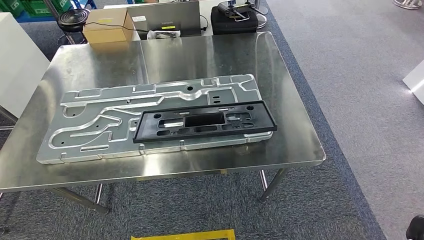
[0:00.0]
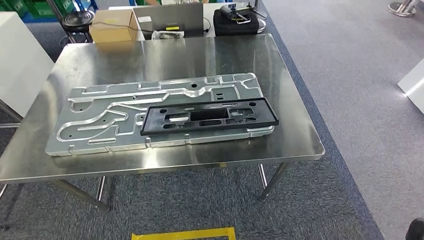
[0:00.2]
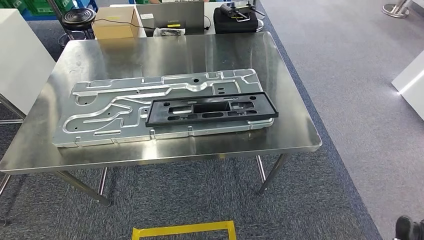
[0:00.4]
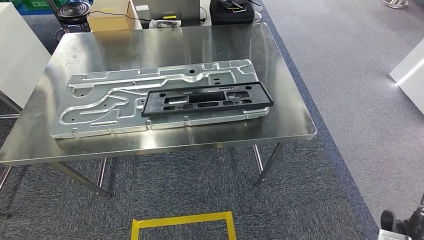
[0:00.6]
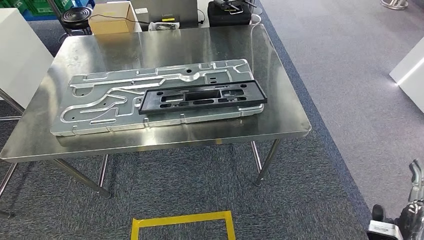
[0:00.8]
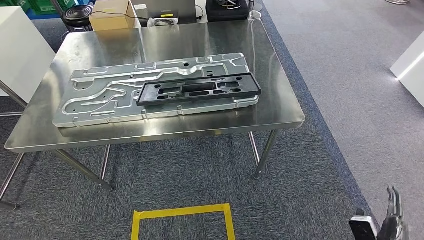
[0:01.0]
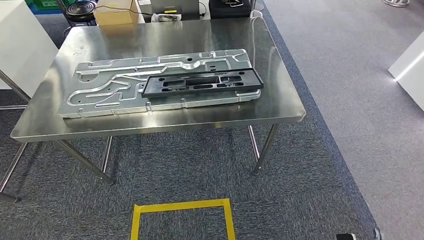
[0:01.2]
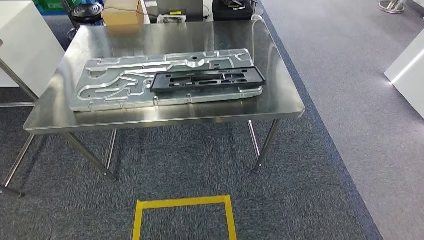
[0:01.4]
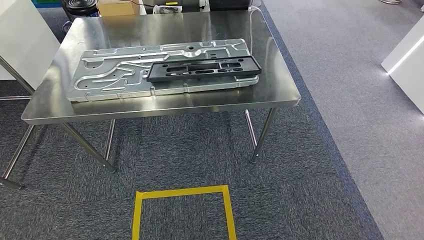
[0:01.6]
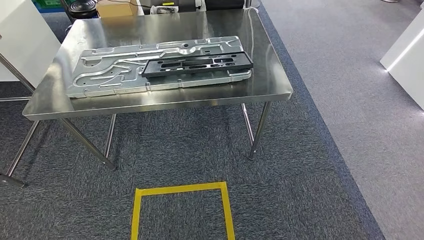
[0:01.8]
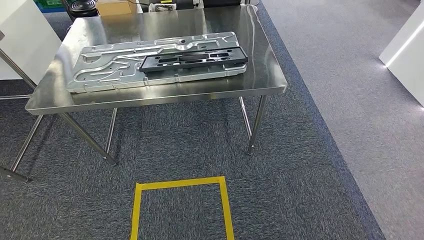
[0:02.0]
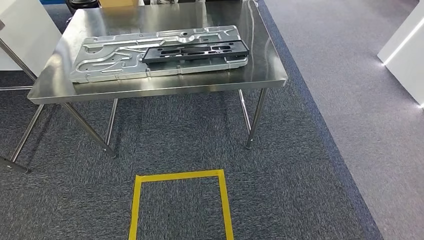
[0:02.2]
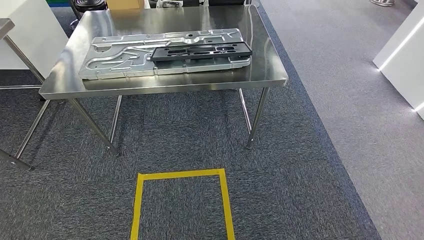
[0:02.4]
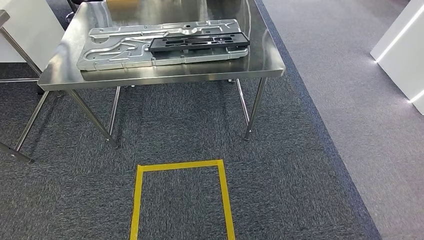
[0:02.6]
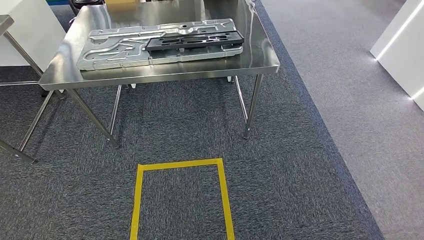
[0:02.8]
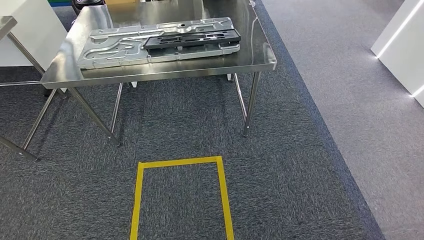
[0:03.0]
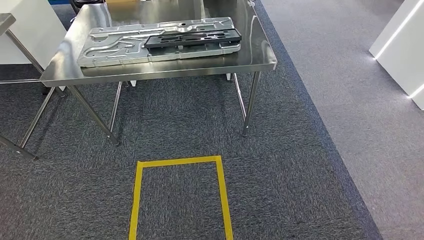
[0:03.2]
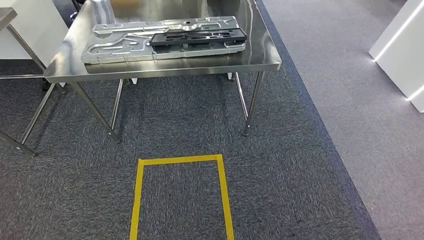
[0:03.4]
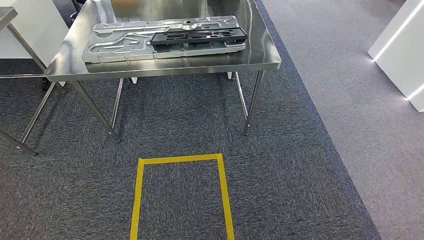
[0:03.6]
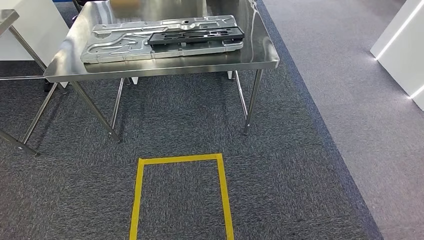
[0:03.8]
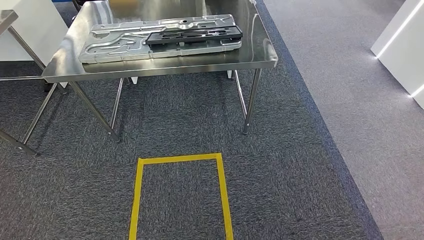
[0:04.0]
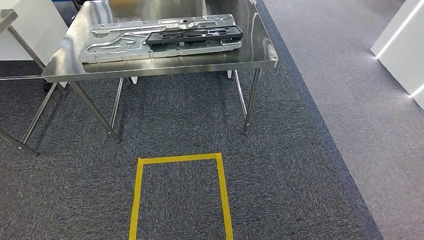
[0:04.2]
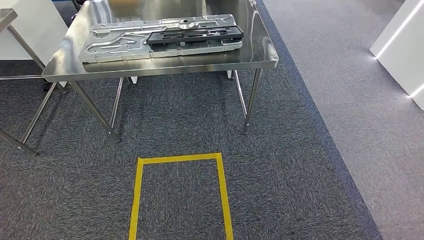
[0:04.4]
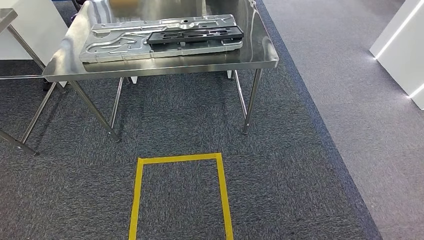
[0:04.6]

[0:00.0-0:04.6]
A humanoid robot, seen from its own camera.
Step, 0:00.0 to 0:04.6: Return to the initial position at the shelf.
0:03.0 to 0:04.6: Neither hand changes place.
